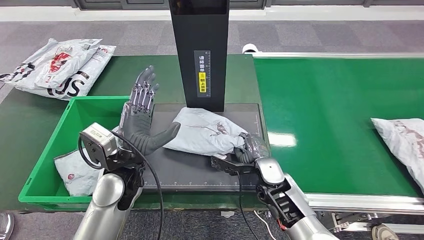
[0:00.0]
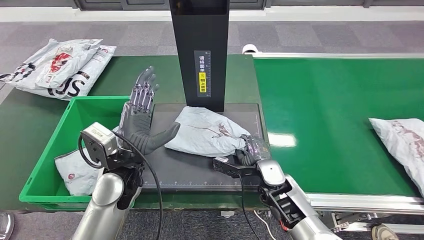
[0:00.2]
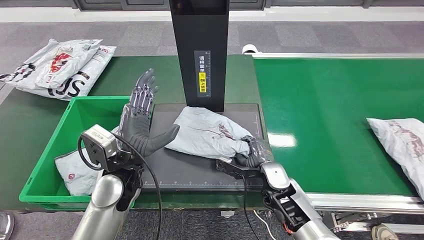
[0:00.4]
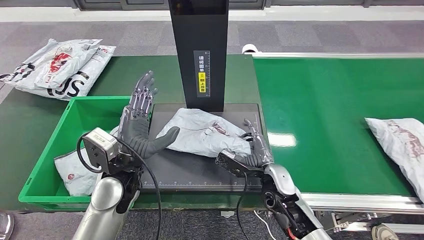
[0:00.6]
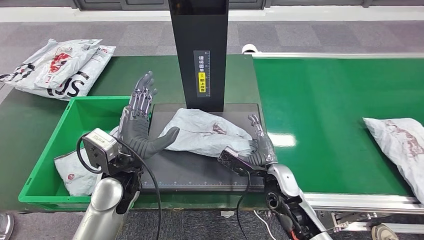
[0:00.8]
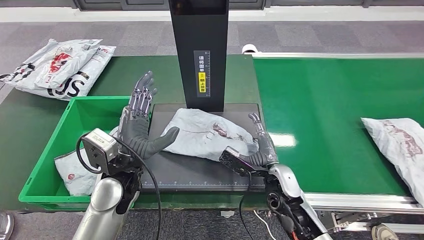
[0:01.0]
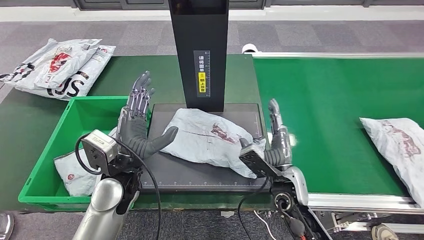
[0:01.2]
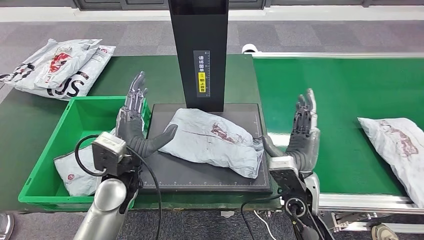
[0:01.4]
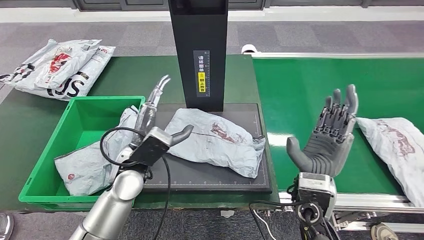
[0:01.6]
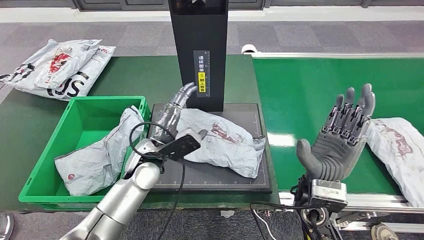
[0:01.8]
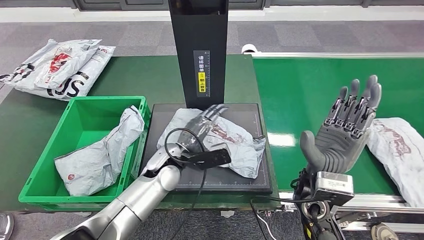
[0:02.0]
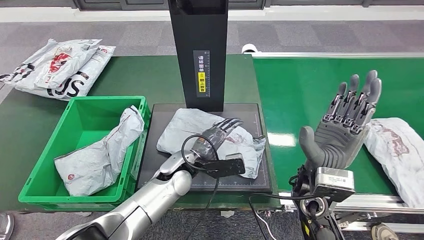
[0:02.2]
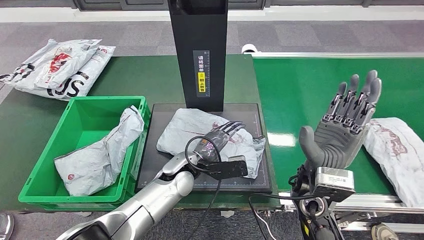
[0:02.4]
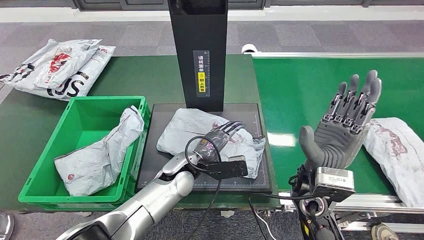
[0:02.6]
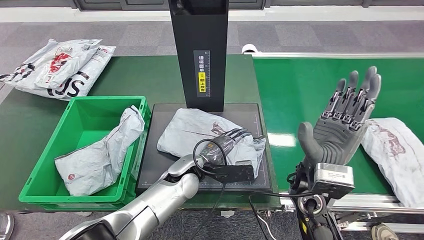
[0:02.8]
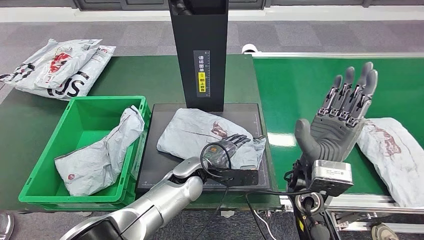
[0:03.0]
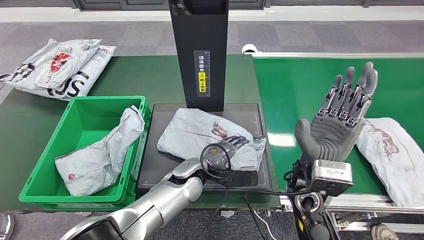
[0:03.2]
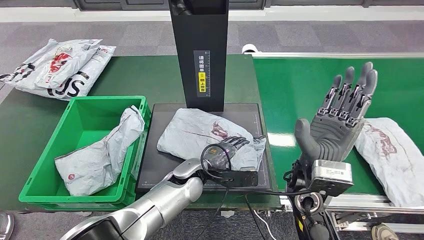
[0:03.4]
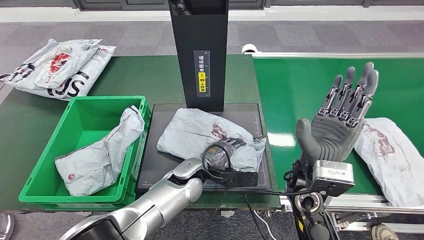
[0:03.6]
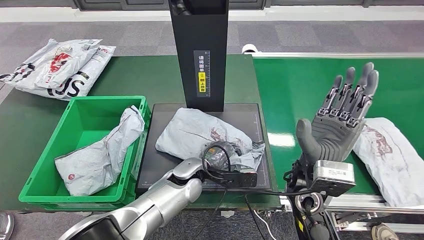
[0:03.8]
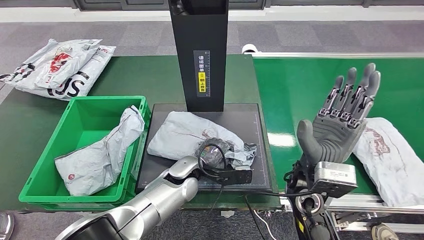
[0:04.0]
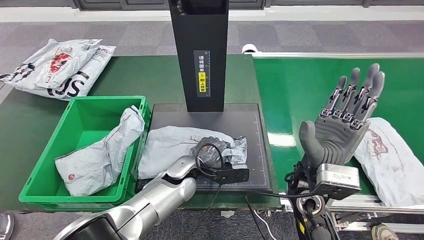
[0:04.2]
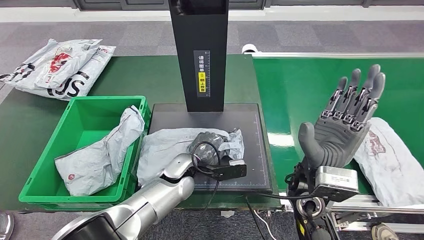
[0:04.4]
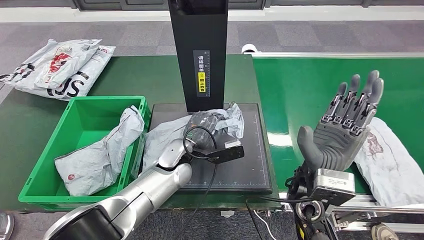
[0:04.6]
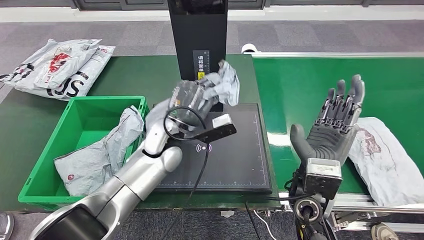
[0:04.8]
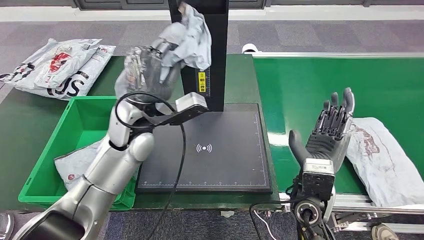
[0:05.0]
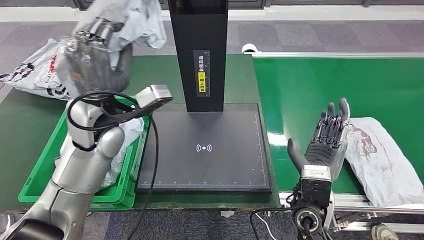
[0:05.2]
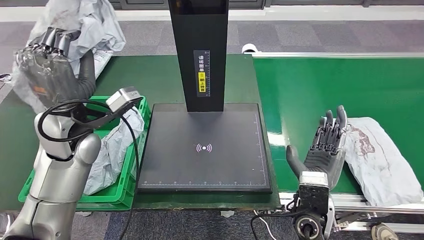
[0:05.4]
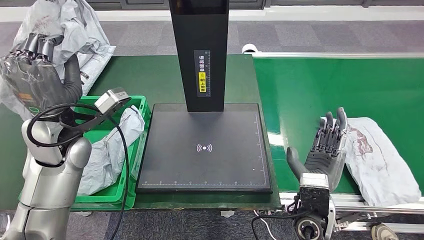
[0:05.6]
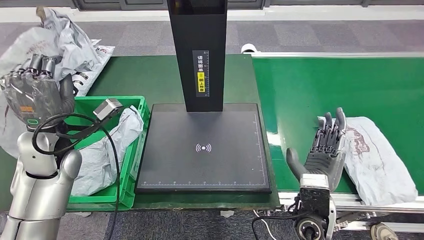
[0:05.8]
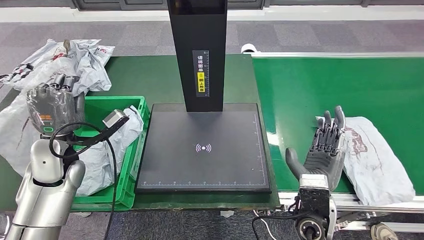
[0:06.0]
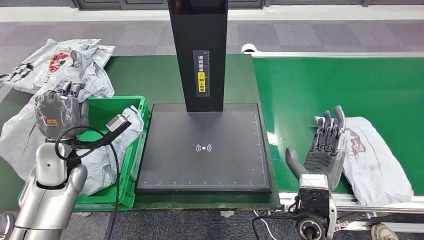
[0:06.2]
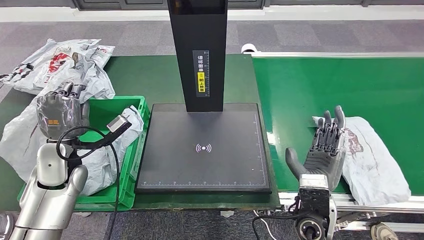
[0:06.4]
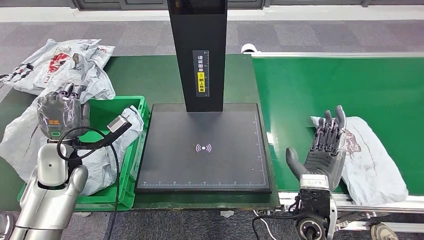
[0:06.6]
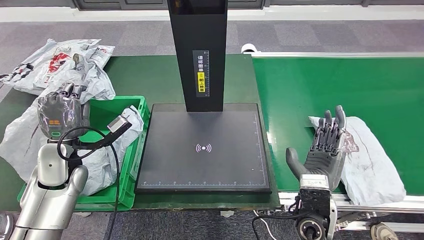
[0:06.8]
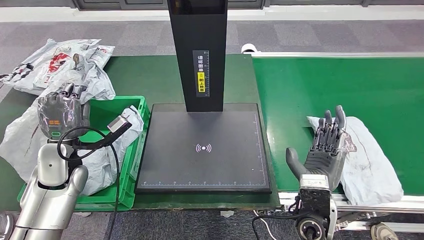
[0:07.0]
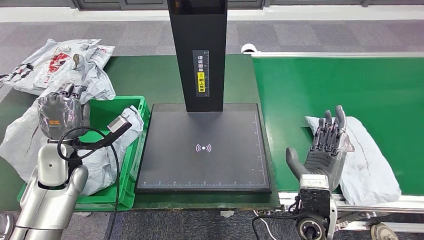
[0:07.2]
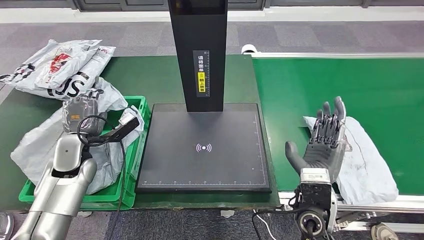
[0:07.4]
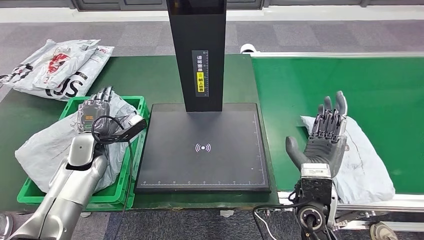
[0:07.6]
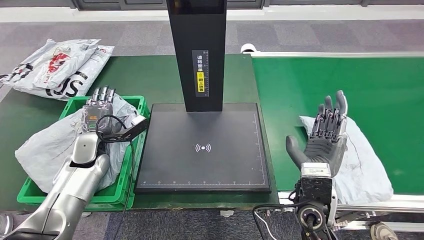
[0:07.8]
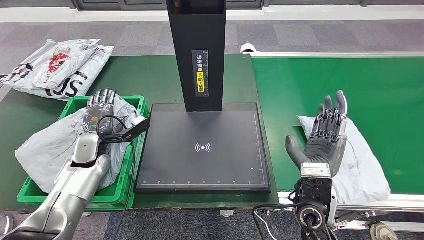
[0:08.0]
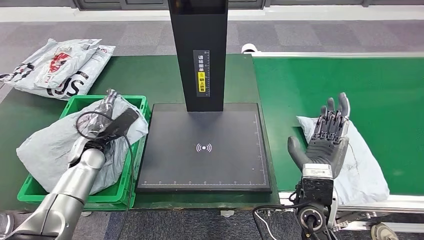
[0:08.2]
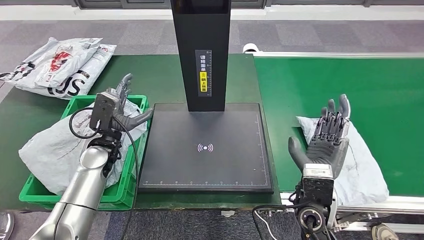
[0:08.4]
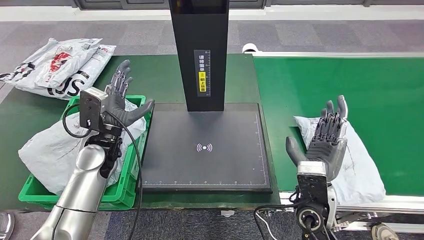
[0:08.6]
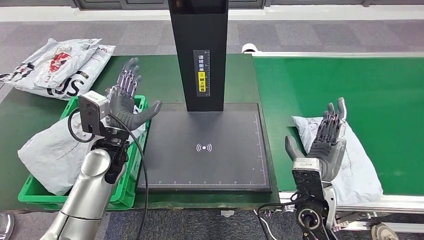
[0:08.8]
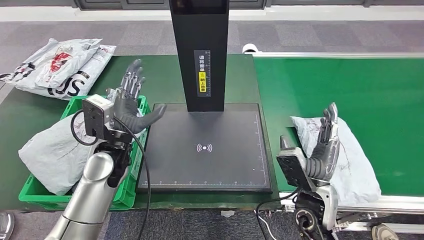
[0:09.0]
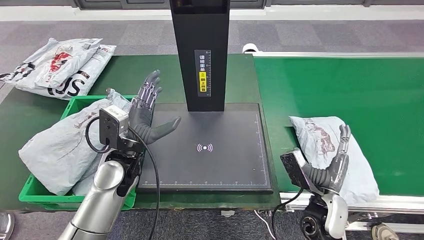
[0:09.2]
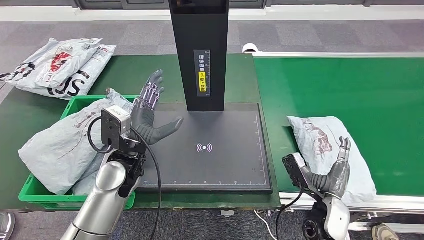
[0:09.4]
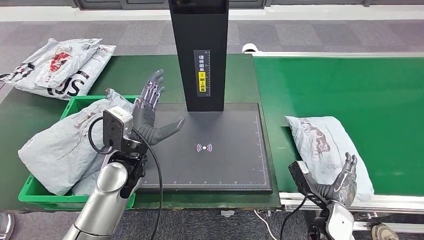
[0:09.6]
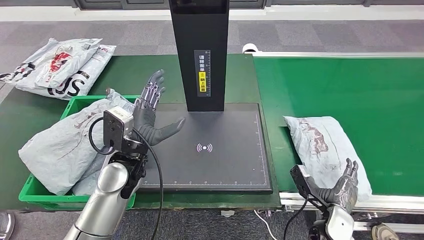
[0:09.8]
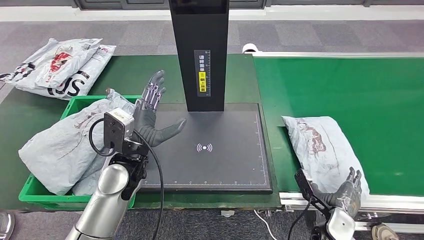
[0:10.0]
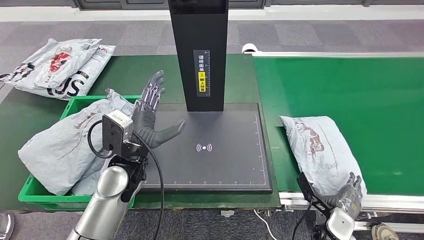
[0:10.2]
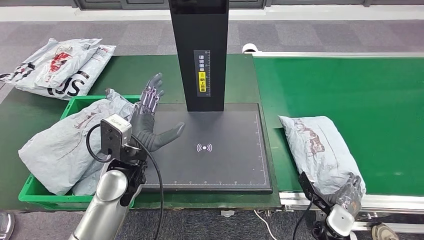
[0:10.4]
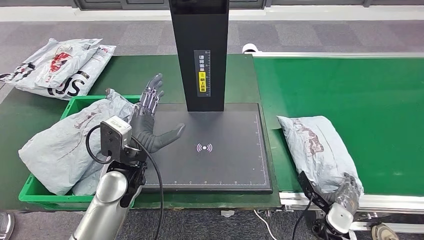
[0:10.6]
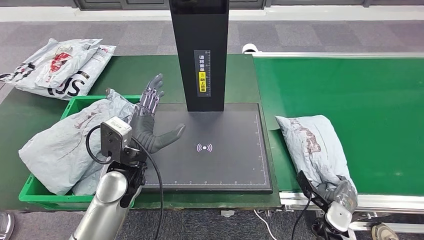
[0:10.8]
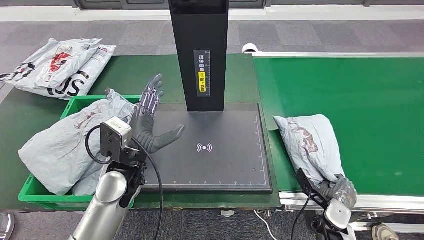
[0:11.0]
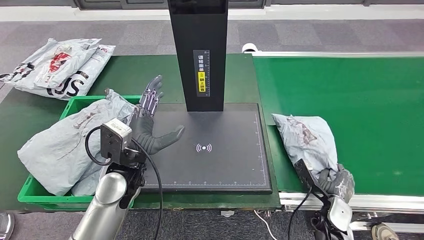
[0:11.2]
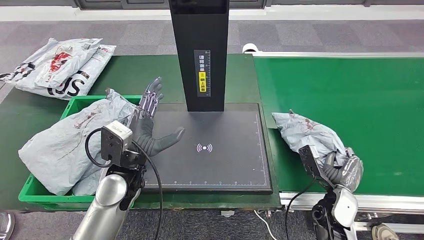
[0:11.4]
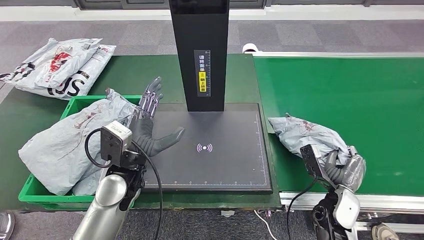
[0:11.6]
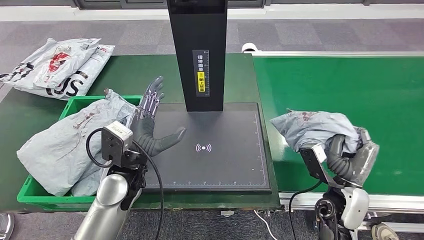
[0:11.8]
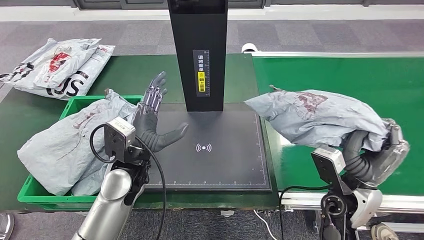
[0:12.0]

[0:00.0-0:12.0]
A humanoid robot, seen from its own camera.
Step, 0:00.0 to 0:01.6: Place the parcel onto the inbound machine.
Step, 0:01.8 to 0:06.0: Pick up the parcel from the inbound machine.
Step, 0:06.4 to 0:10.4: Place the parcel into the delivery box.
0:09.0 to 0:10.4: The left hand ends up some 5 cm from where it was. The right hand shifts about 20 cm downward and to the right.
0:10.4 to 0:12.0: The right hand moves upward, roughly 20 cm.

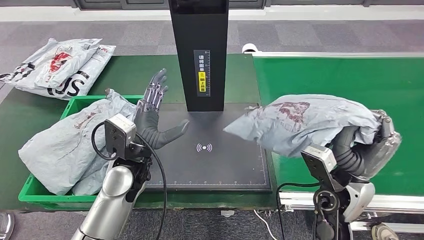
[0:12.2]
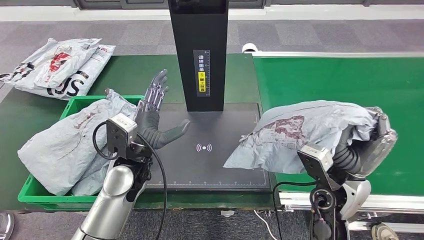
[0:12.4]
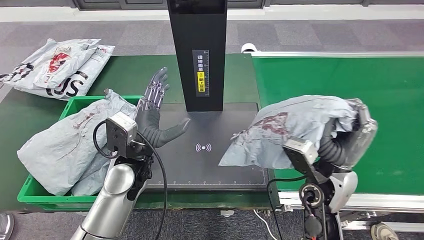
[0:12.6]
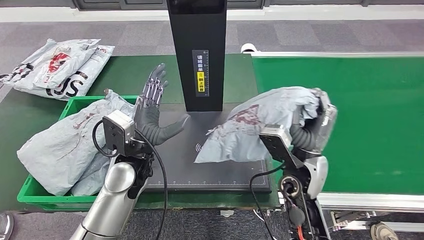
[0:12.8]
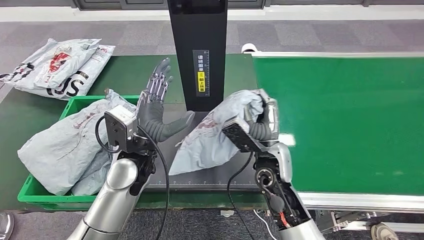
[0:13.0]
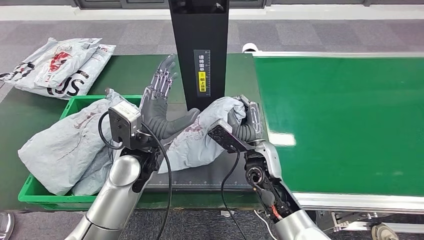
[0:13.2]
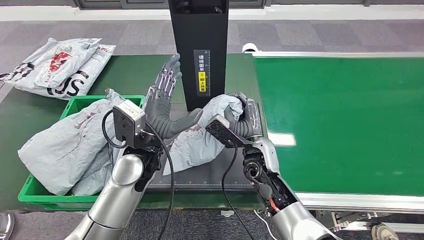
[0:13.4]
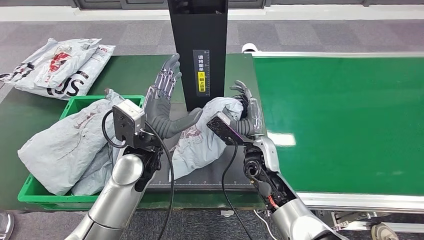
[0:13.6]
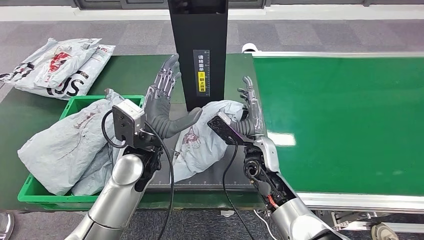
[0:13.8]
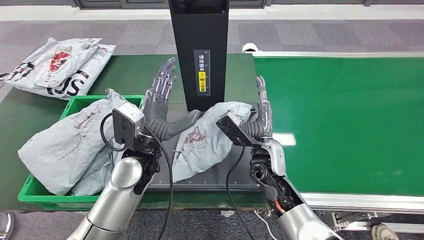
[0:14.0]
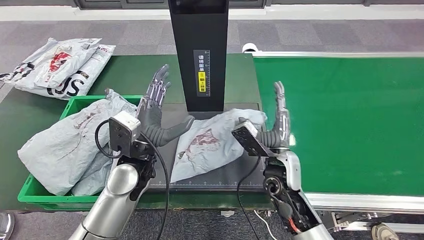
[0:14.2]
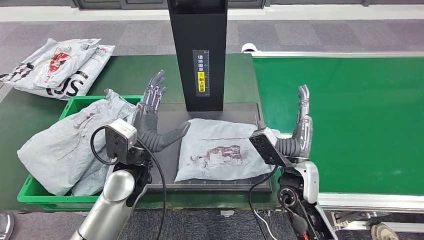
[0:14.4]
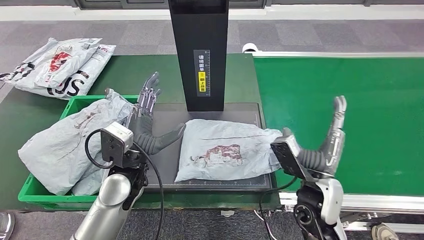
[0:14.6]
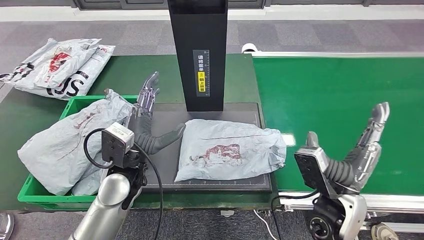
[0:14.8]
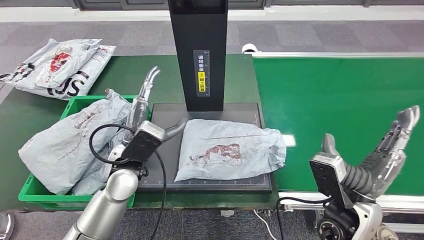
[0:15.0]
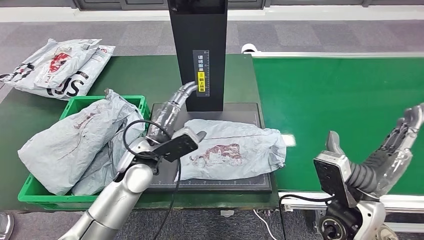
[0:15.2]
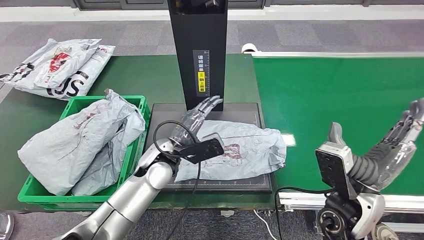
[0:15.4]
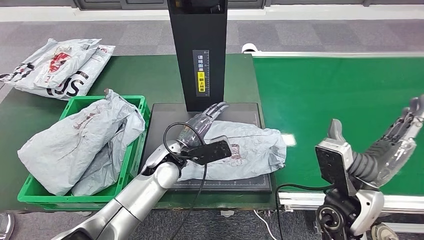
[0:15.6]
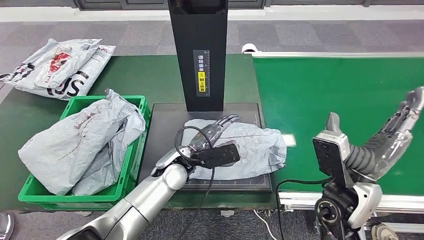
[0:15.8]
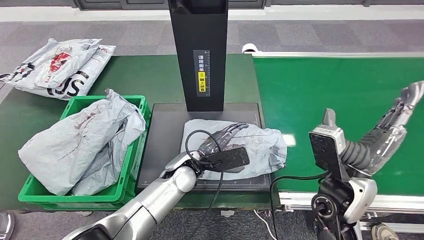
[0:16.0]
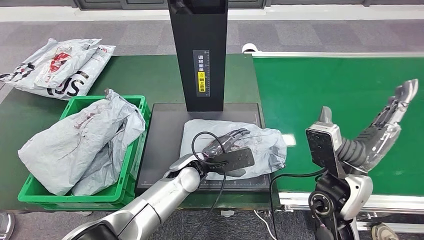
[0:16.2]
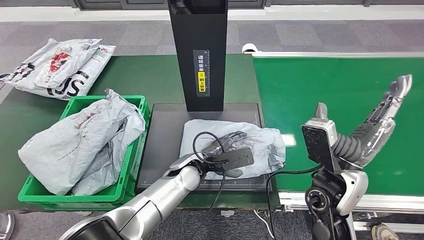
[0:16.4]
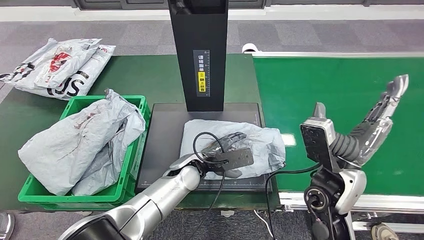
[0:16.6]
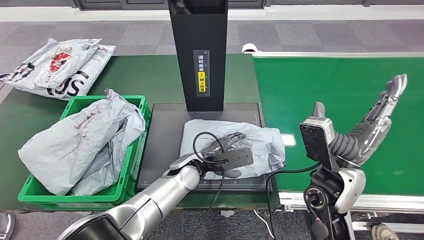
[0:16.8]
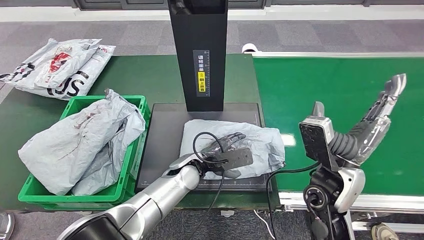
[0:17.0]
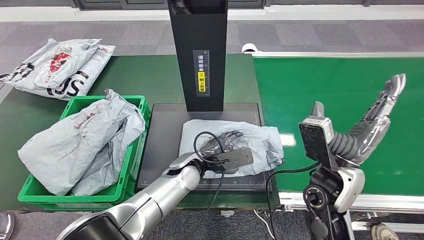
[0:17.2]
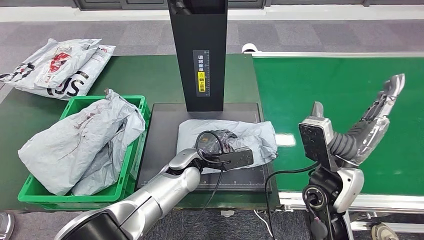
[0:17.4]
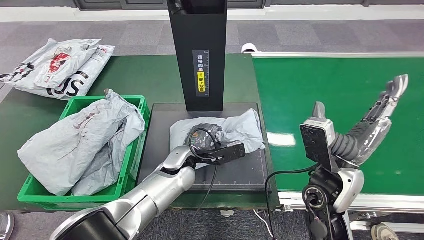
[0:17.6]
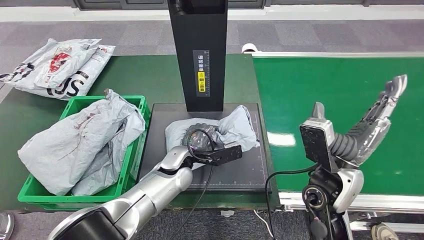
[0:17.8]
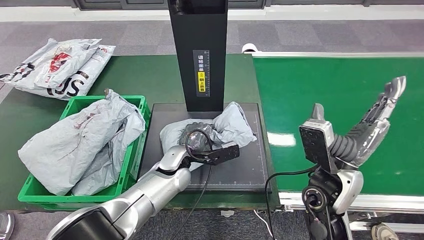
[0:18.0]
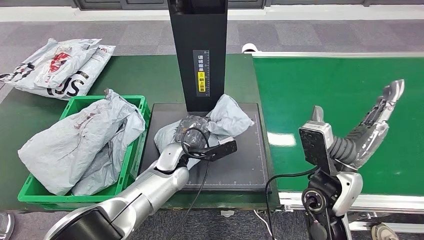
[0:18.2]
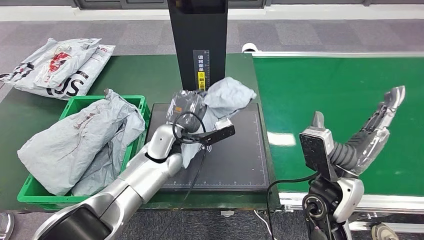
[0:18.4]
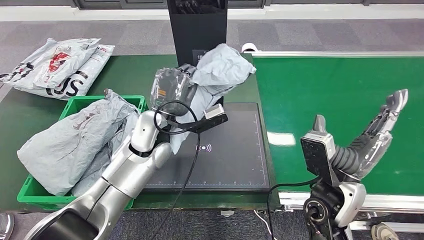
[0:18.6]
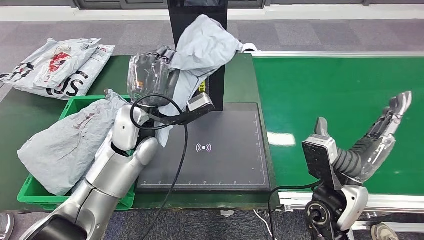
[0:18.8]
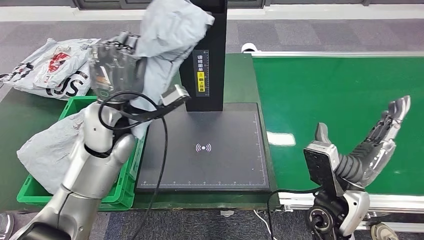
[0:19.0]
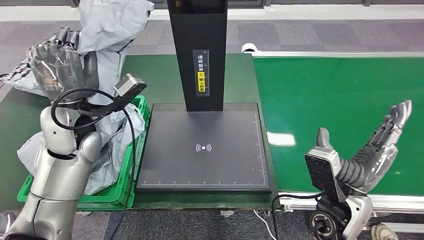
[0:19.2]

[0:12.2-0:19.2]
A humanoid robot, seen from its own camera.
Step, 0:12.8 to 0:15.4: Place the parcel onto the inbound machine.
